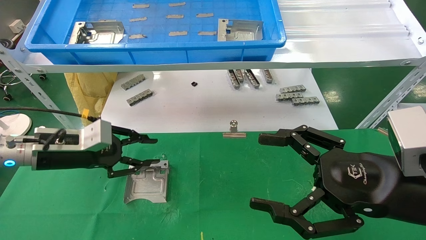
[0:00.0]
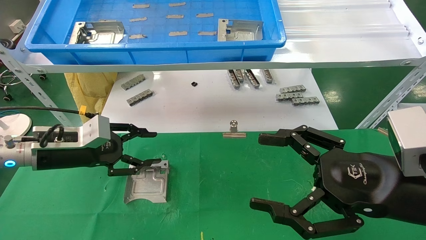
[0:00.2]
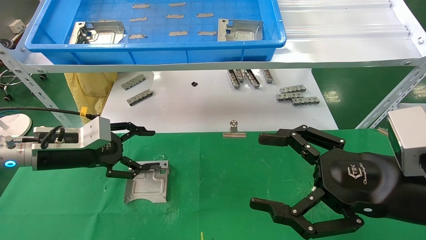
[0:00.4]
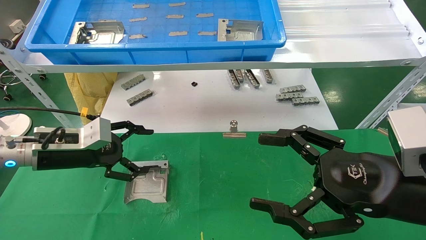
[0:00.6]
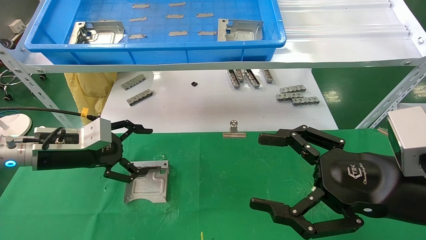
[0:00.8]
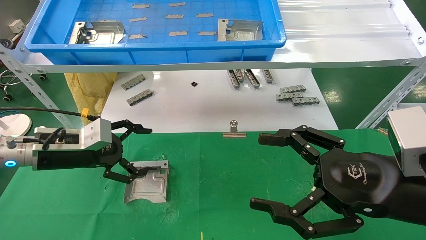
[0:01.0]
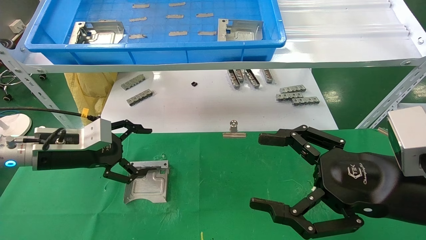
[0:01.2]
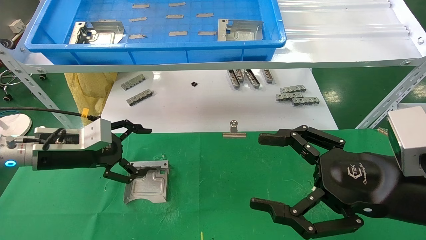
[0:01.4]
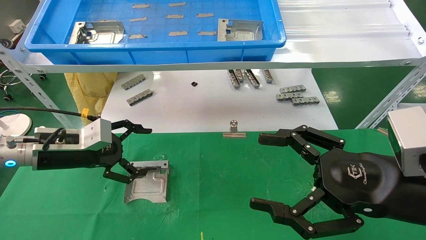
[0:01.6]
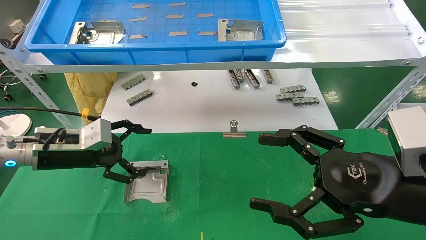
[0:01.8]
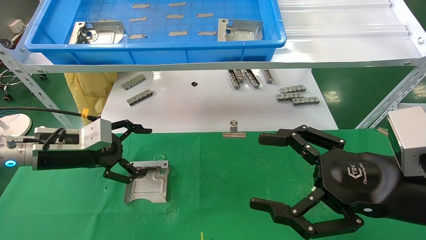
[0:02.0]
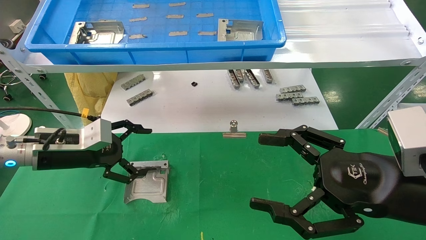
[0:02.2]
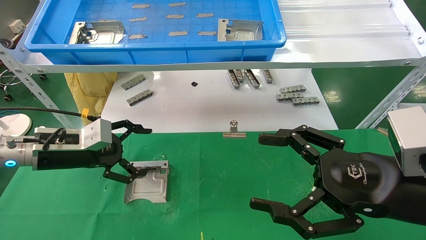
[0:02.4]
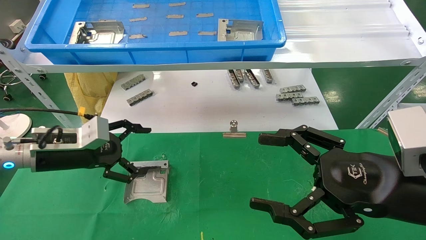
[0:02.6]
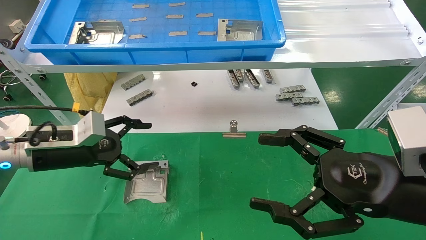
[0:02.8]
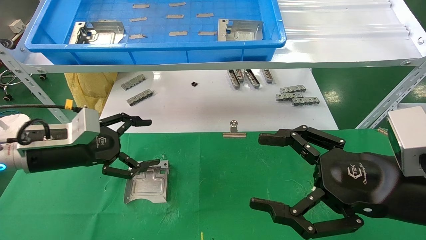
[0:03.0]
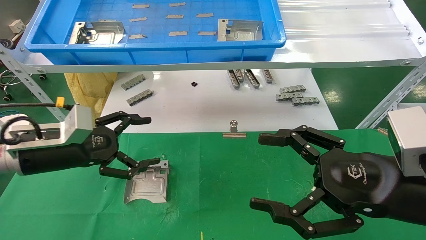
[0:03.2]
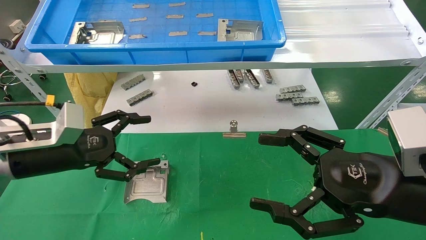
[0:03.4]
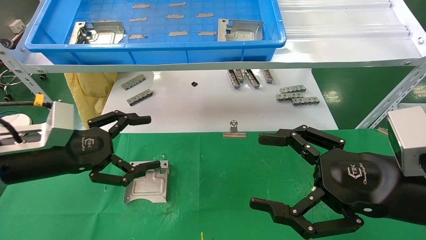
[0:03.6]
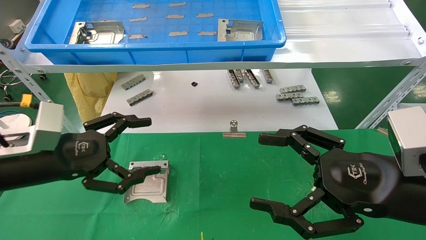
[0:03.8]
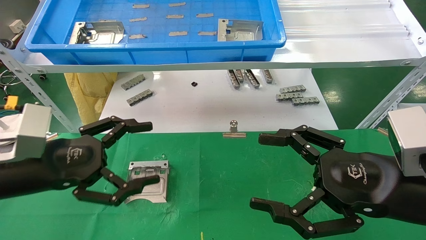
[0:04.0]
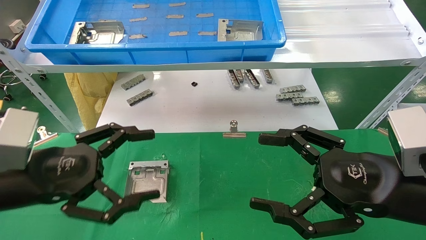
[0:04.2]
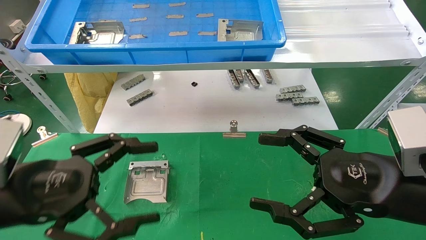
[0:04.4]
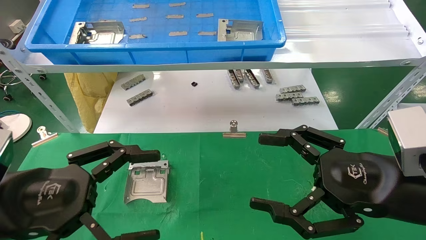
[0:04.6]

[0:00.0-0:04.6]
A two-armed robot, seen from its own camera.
Task of the whole recording: use the mechanical arm to pick up the parts and place them on the table.
0:00.0 to 0:01.6: The left gripper opens its fingers.
0:01.6 to 0:03.0: The grippers make only small movements.
0:03.0 to 0:04.6: The left gripper shifts some 15 cm backward.
